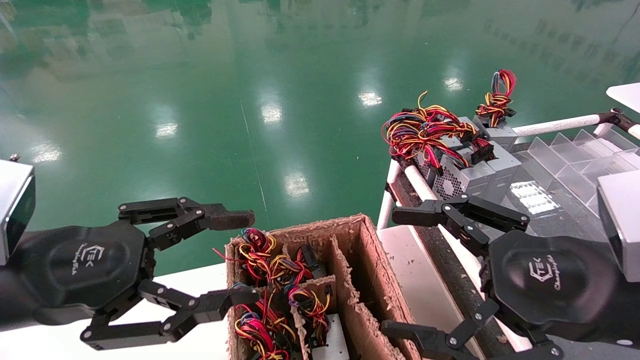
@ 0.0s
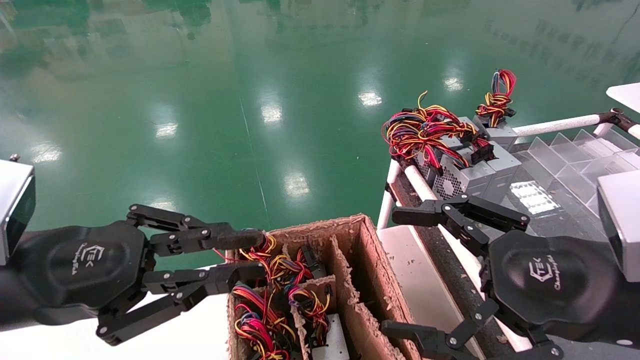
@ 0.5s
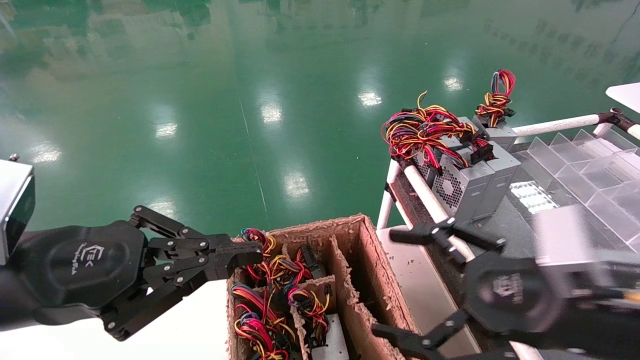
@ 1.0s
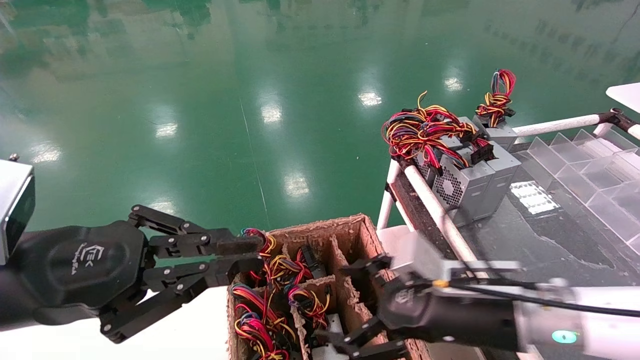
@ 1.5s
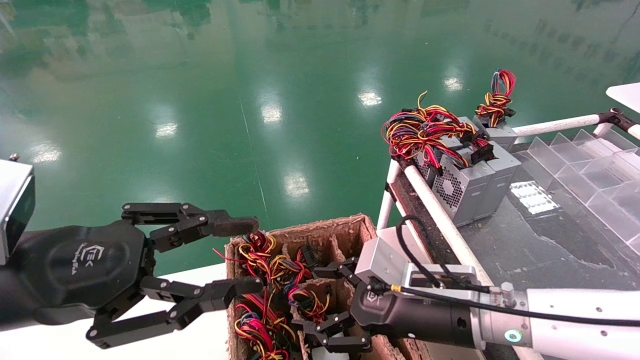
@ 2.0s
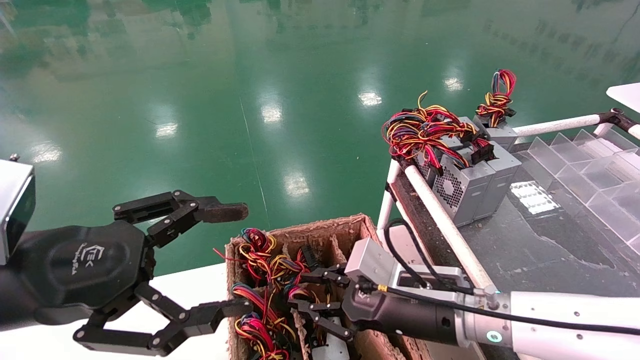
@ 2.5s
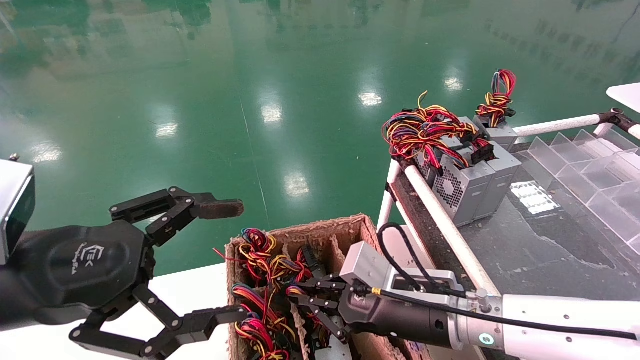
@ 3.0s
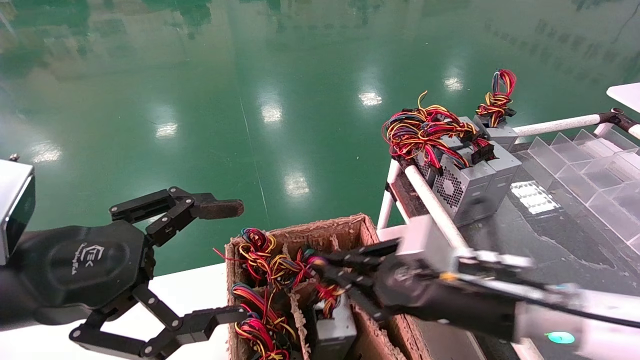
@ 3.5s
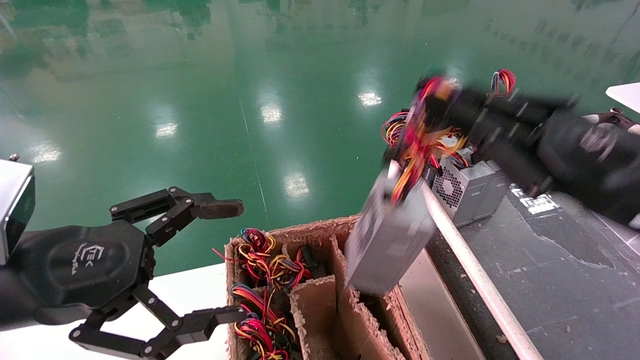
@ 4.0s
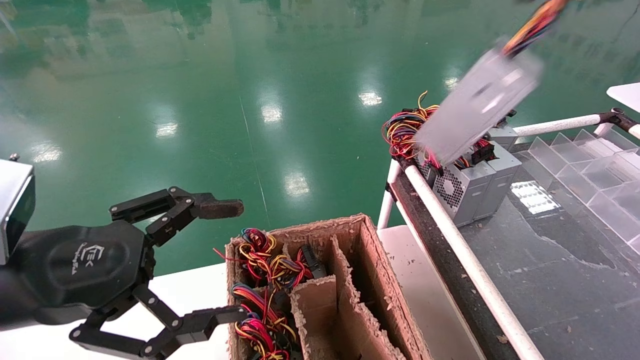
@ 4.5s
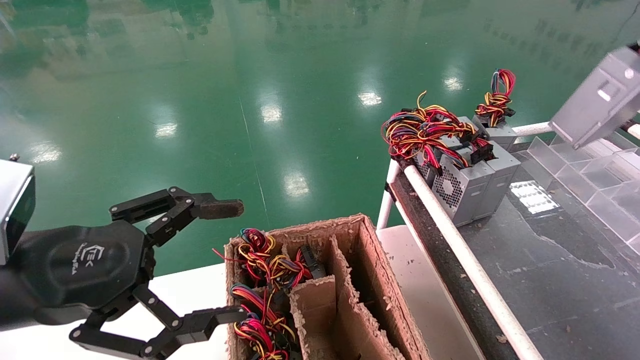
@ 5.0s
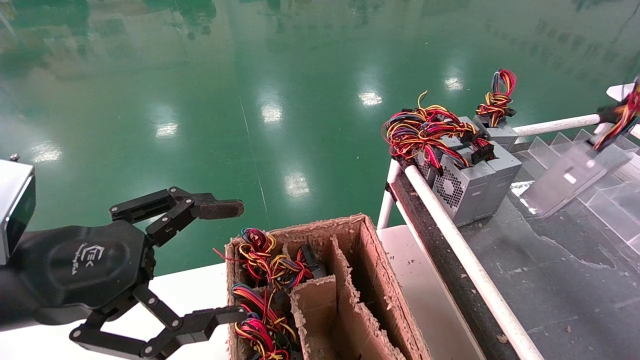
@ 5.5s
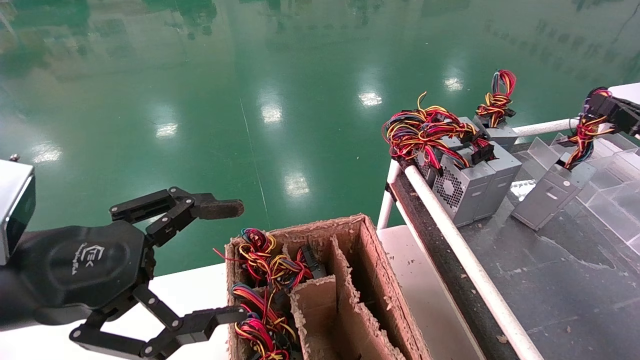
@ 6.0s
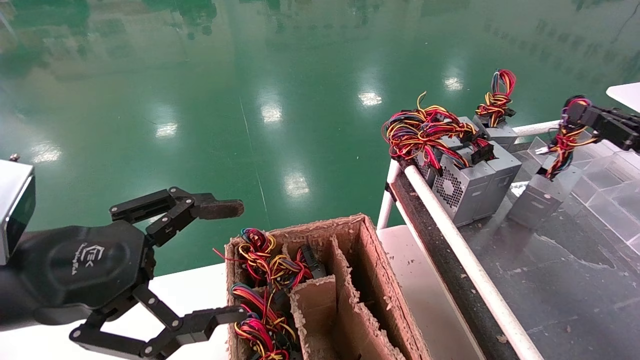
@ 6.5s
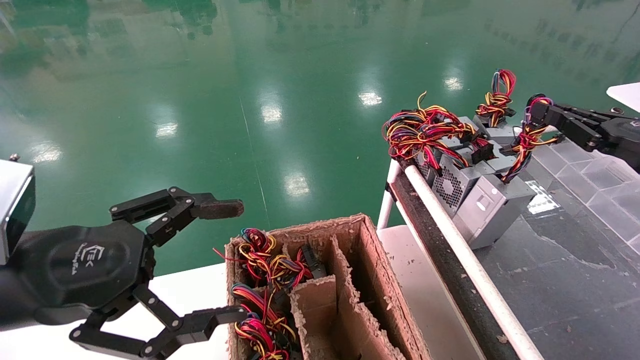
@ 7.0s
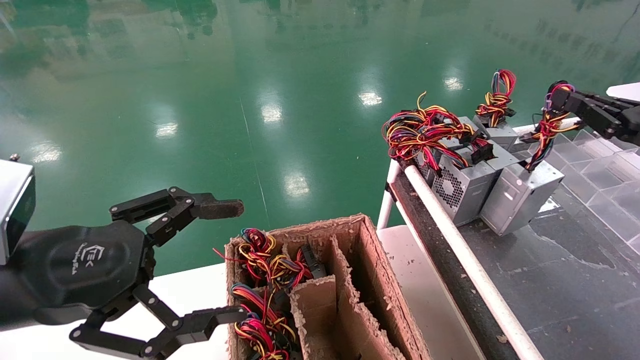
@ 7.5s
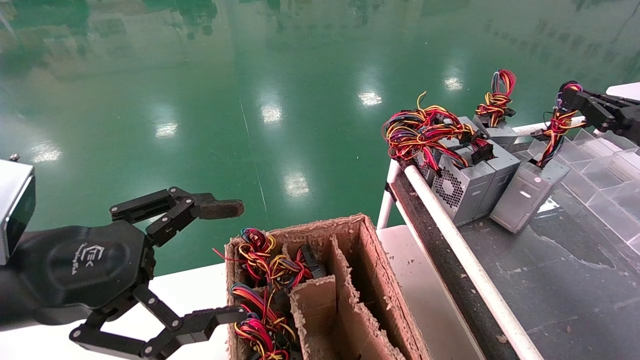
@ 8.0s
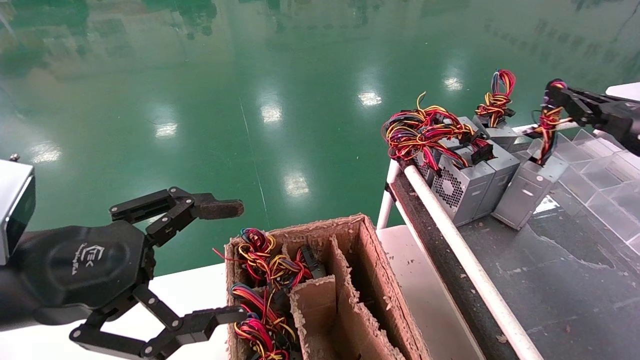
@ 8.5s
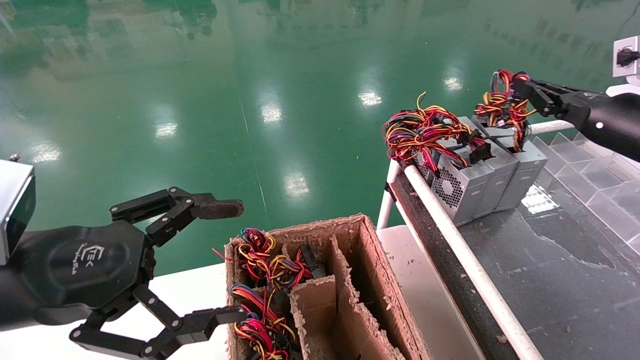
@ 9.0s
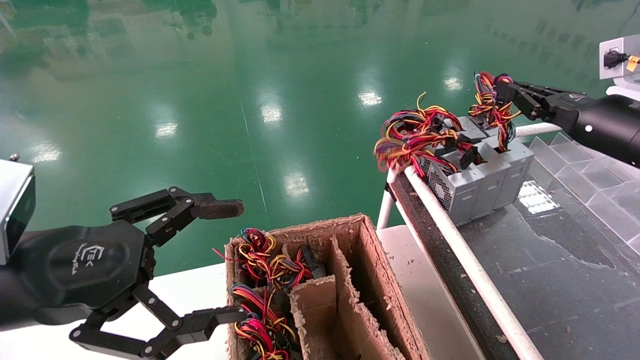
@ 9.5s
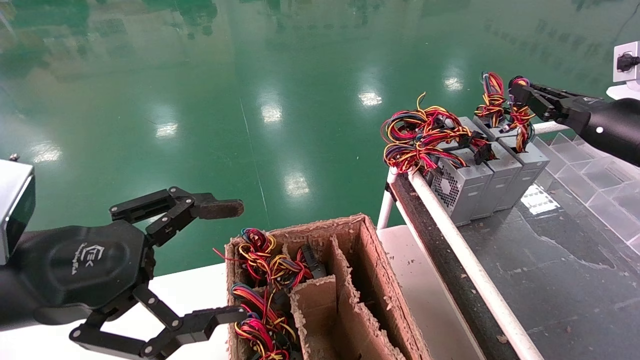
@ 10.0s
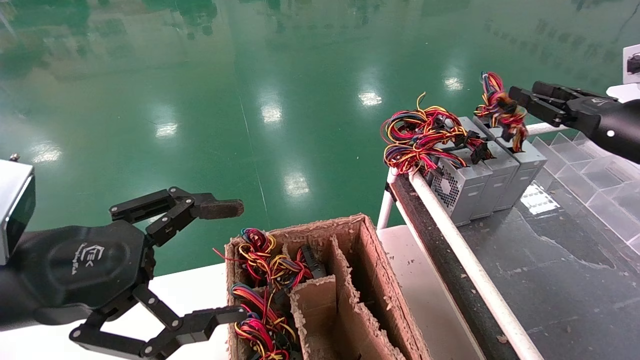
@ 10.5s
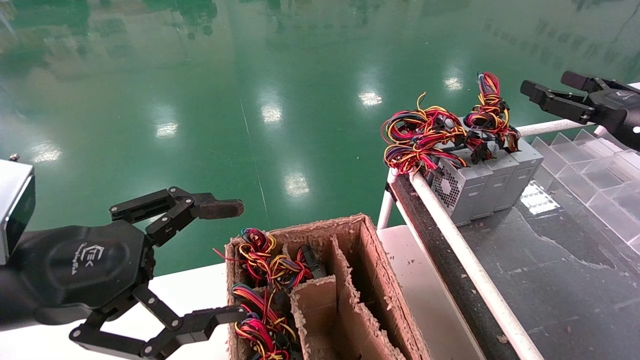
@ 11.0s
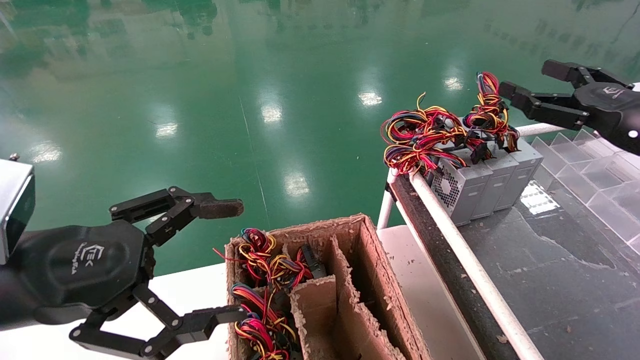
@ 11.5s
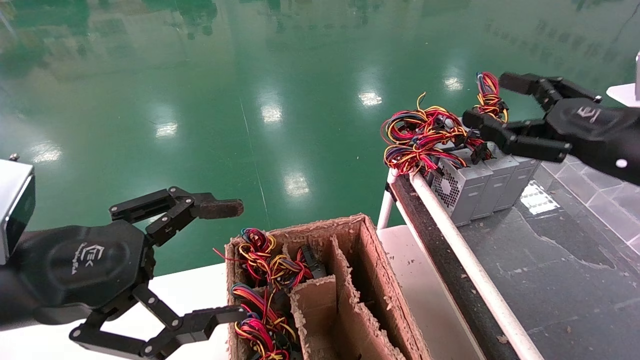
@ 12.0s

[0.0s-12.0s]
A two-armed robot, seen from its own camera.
Step, 1.0s to 3.0s: Grab and lift the power supply from the large box.
Step, 3.5s to 10.0s: Place the power supply on the operating table.
0.0s to 2.0s: The right gripper goes some 20 cm downward, forward and to the left.
2.0s to 4.0s: The left gripper opens; the right gripper travels upward, to the right and backward by roughly 20 cm, and closes its fingers.
4.0s to 6.0s: The right gripper is displaced to the right and forward by some 25 cm.
6.0s to 8.0s: The grippers stay close to where they were, moving slightly.
8.0s to 10.0s: The right gripper shifts roughly 5 cm to the left.
10.0s to 12.0s: The right gripper travels backward and to the left by about 10 cm, and opens.

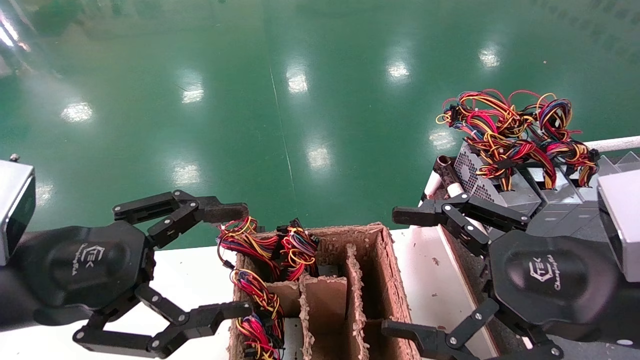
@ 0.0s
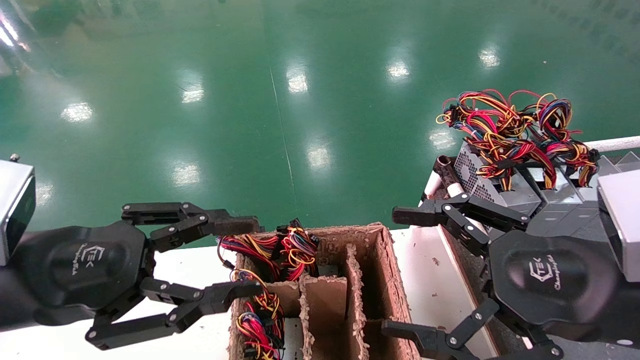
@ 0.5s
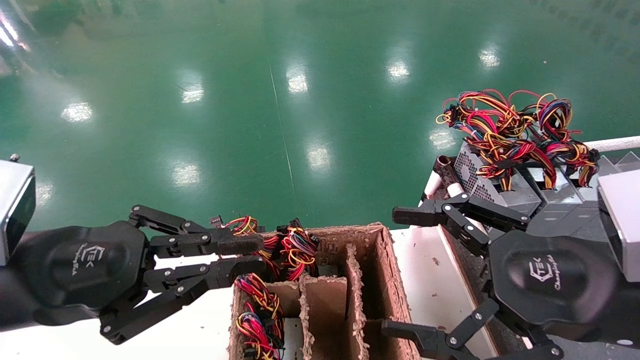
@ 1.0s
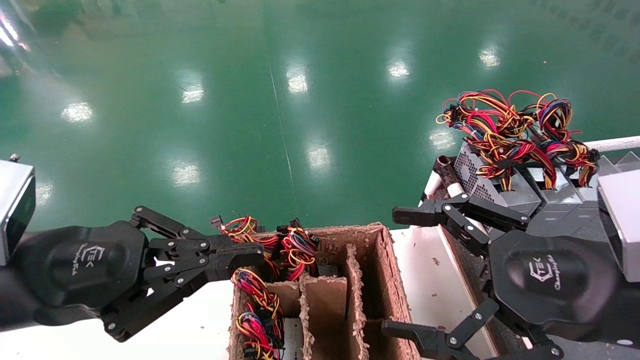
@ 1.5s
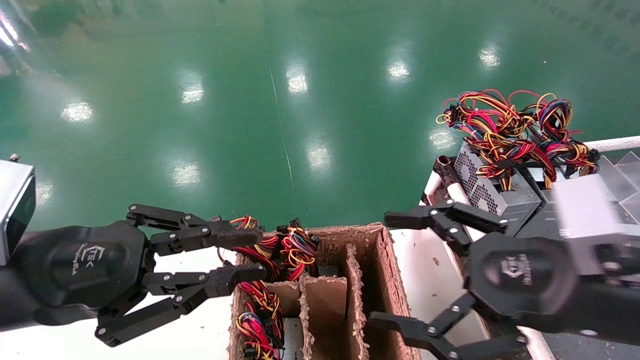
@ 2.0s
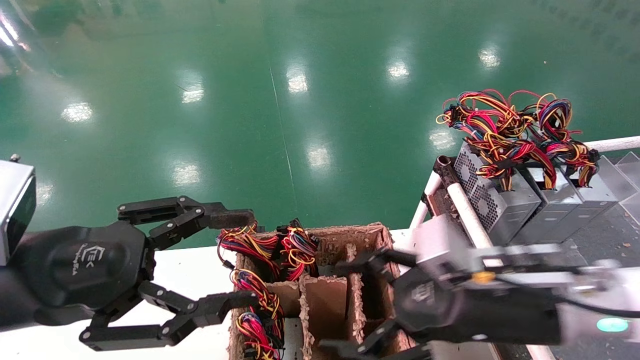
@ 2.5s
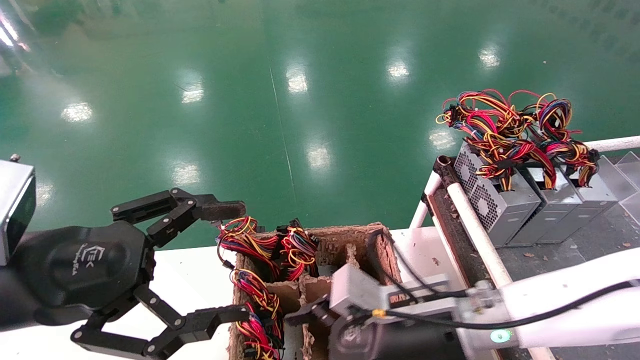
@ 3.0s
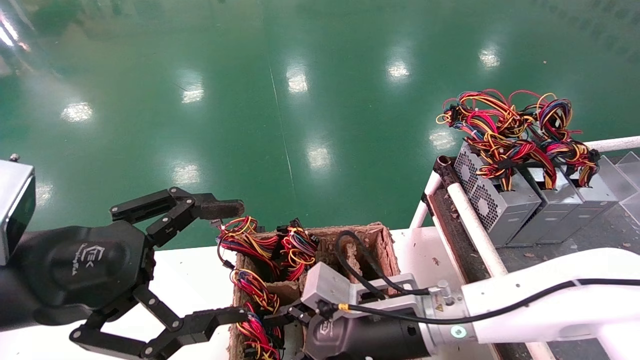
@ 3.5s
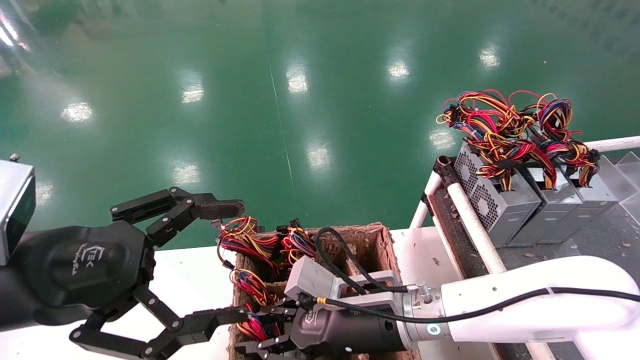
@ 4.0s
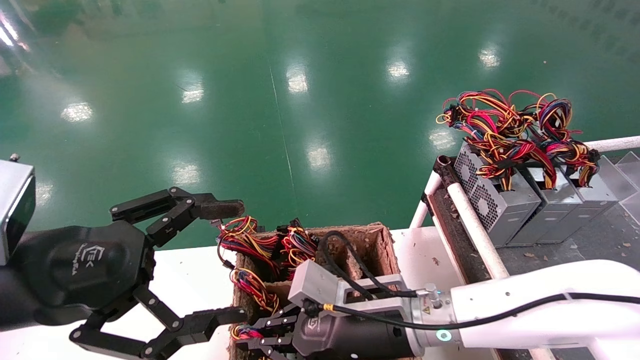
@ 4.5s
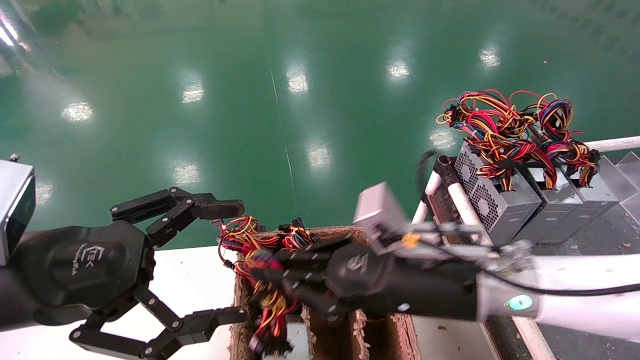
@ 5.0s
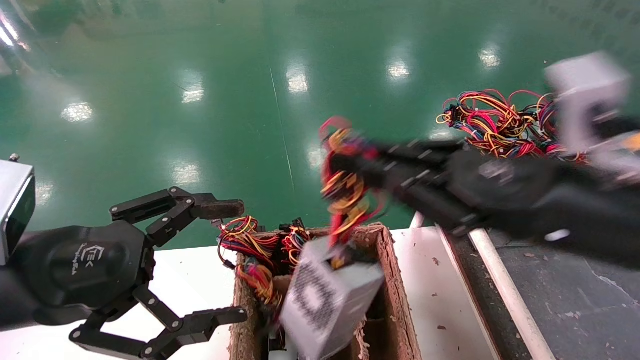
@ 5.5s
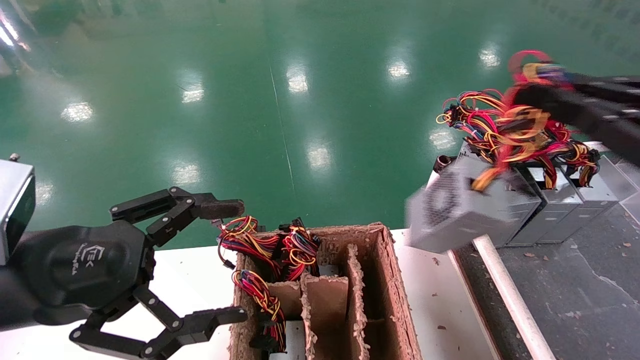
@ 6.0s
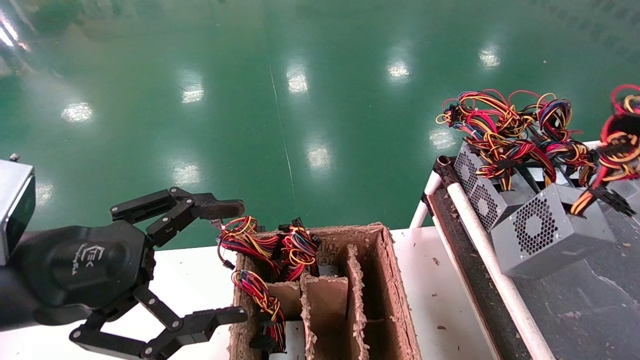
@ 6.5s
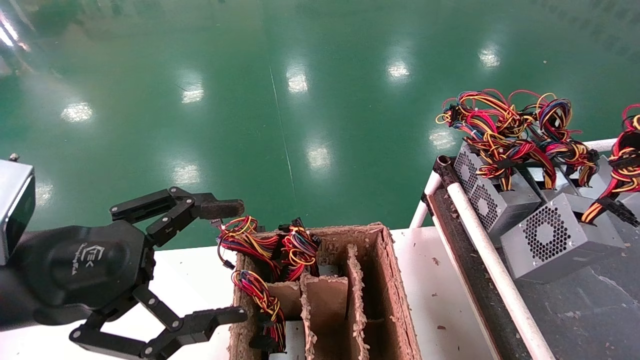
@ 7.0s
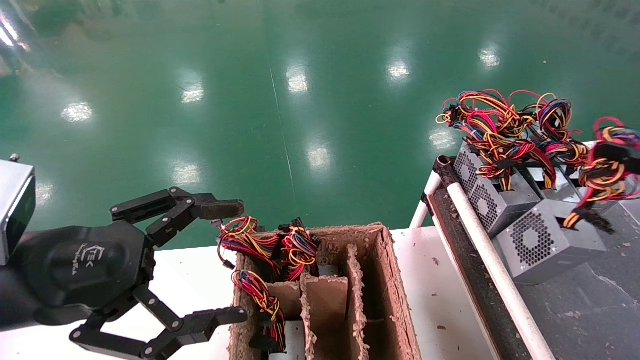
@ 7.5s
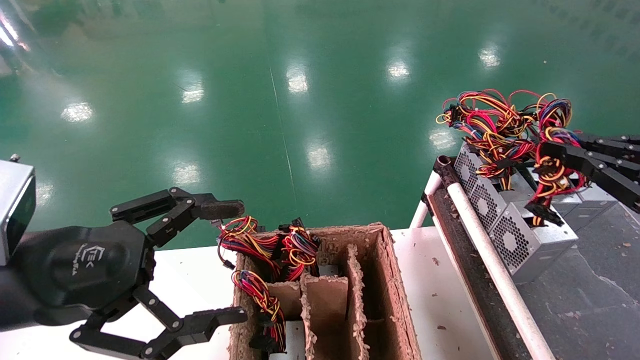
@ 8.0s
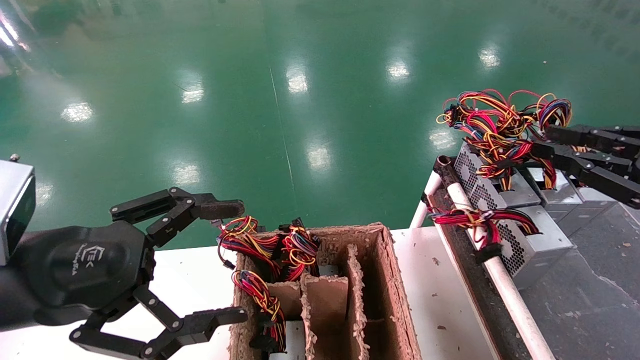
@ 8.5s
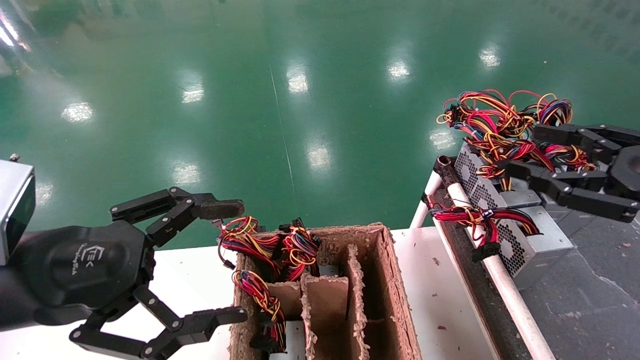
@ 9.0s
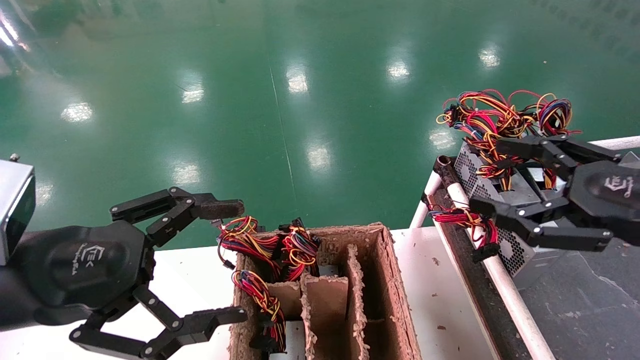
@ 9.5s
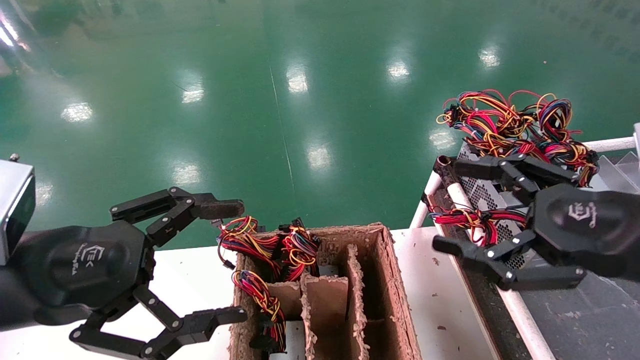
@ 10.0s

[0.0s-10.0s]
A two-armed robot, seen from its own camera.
Step, 2.5s to 4.5s: Grab and lift the power supply from the large box.
Step, 5.0s to 8.5s: Place the power supply on the operating table.
0.0s to 2.0s: The left gripper closes up.
2.0s to 4.0s: The left gripper opens its fingers, while the right gripper travels to the left, downward and forward by some 25 cm, and closes its fingers.
4.0s to 6.0s: The right gripper heads to the right and upward, covering about 35 cm, and closes up.
6.0s to 8.0s: The right gripper heads to the right, covering about 5 cm.
8.0s to 10.0s: The right gripper moves to the left, about 10 cm, and opens its fingers.
